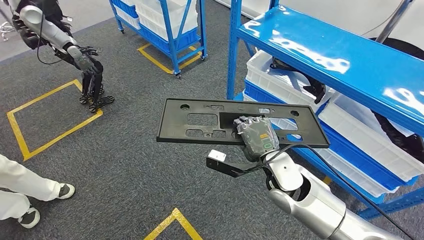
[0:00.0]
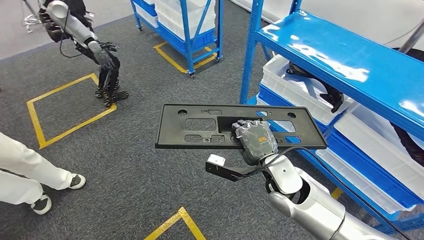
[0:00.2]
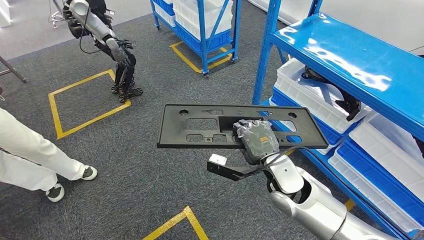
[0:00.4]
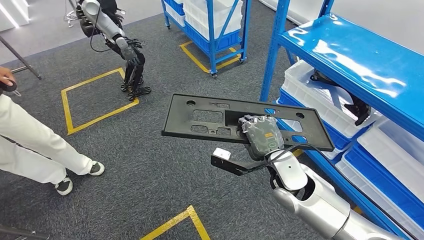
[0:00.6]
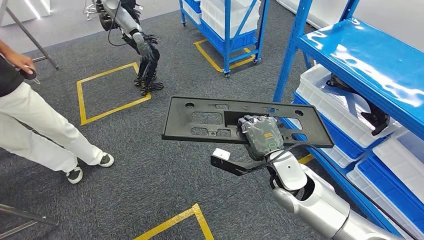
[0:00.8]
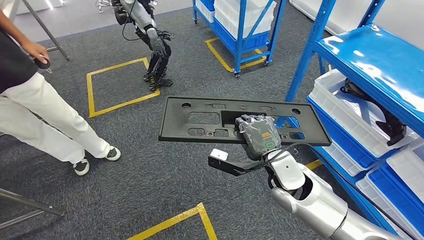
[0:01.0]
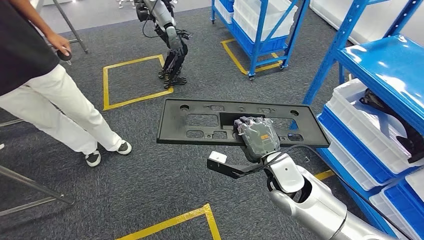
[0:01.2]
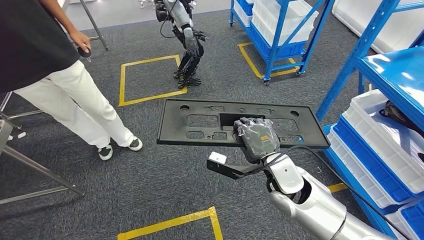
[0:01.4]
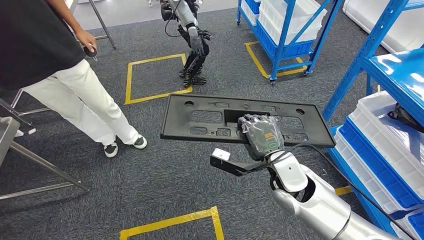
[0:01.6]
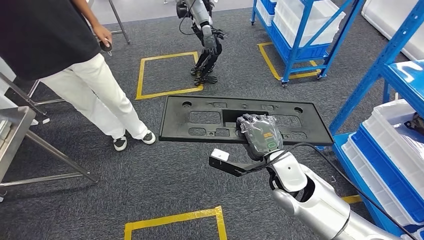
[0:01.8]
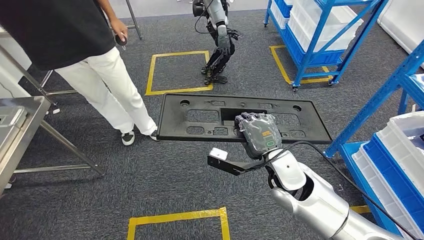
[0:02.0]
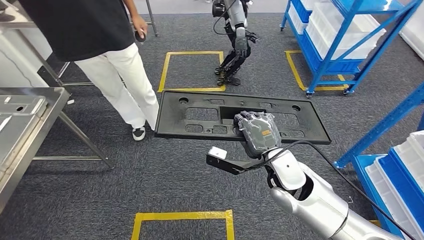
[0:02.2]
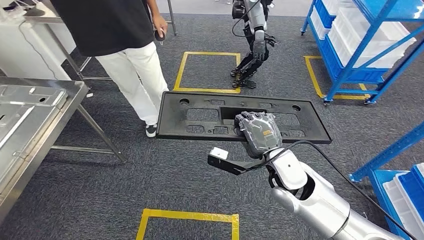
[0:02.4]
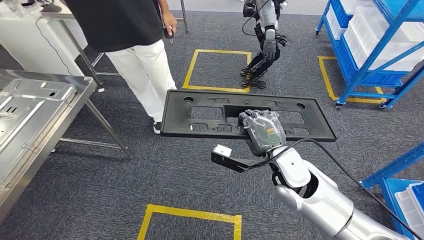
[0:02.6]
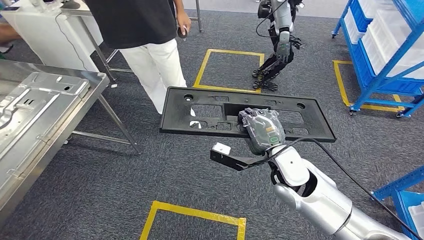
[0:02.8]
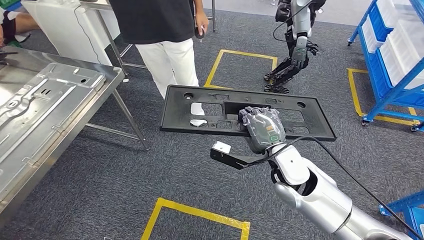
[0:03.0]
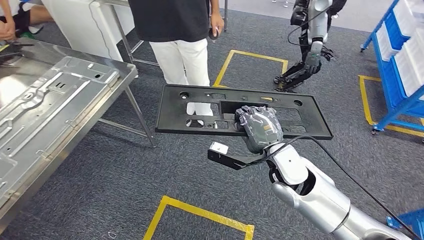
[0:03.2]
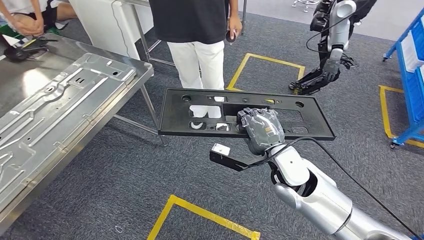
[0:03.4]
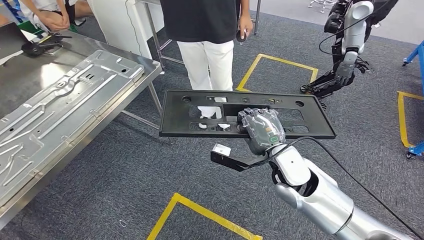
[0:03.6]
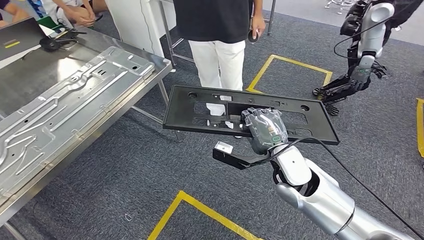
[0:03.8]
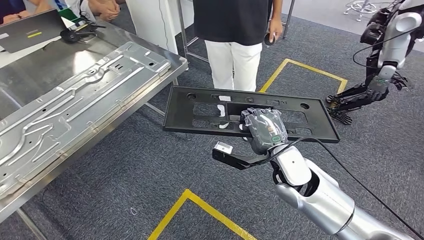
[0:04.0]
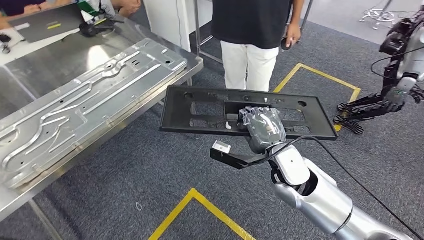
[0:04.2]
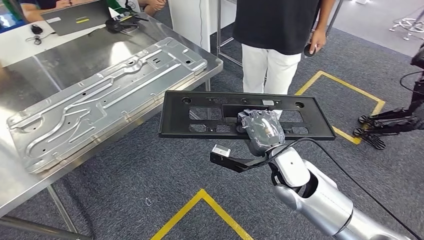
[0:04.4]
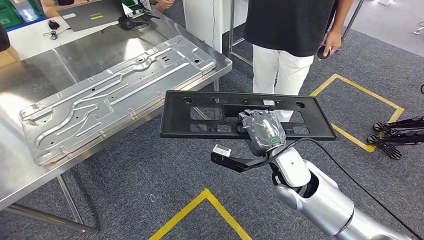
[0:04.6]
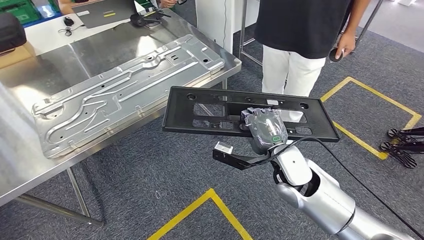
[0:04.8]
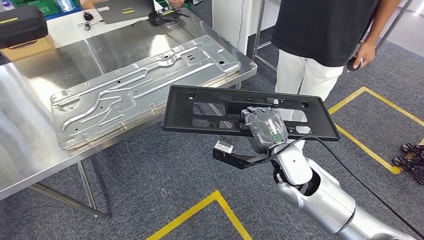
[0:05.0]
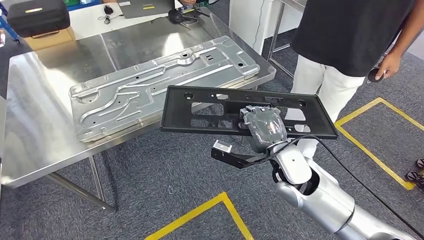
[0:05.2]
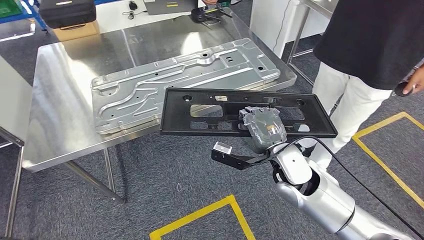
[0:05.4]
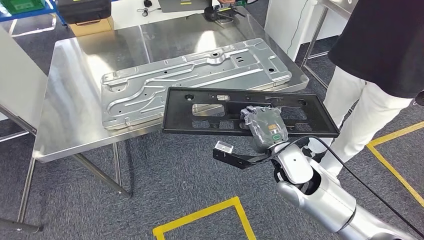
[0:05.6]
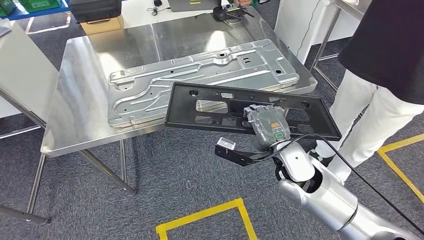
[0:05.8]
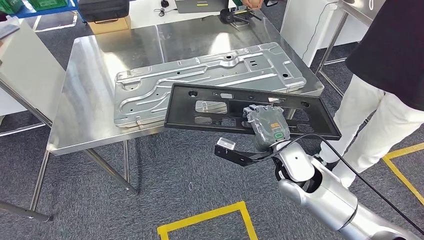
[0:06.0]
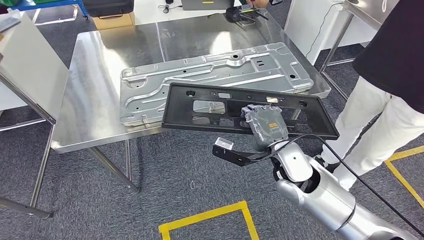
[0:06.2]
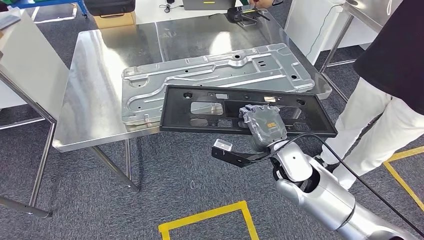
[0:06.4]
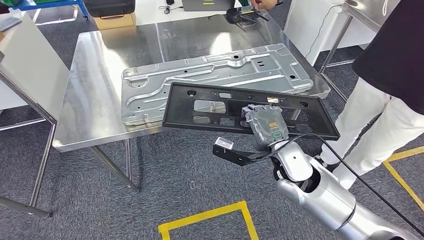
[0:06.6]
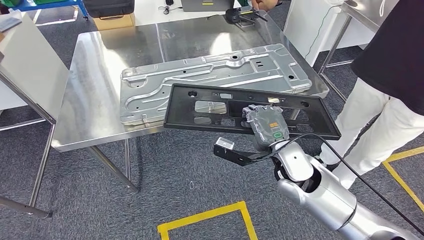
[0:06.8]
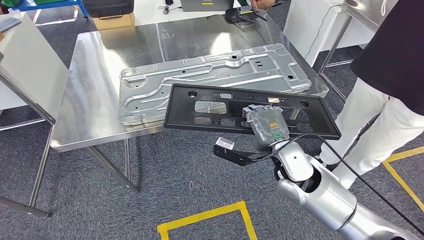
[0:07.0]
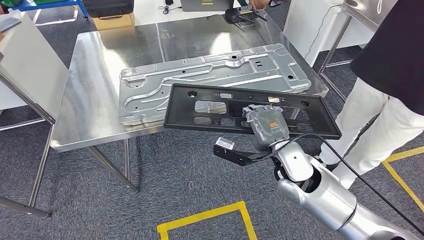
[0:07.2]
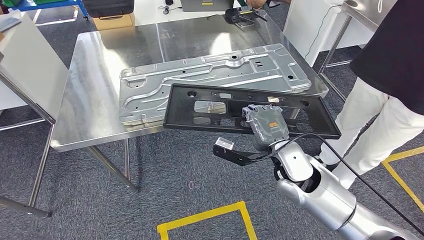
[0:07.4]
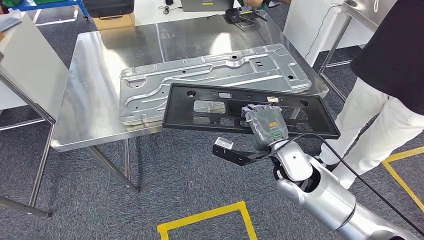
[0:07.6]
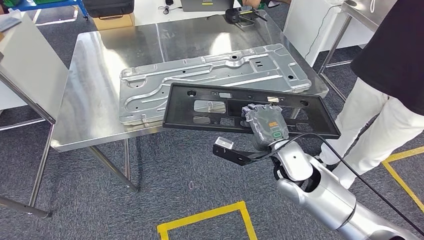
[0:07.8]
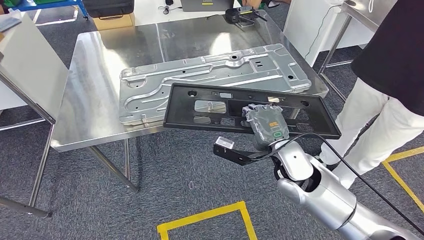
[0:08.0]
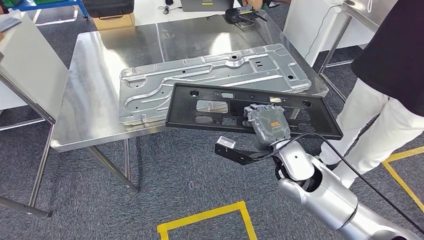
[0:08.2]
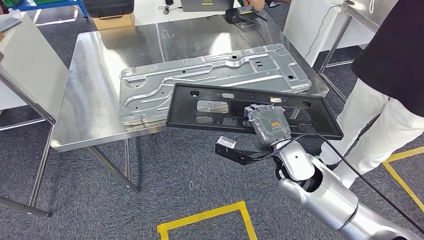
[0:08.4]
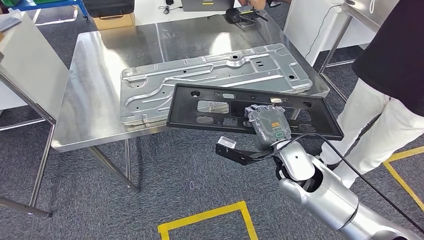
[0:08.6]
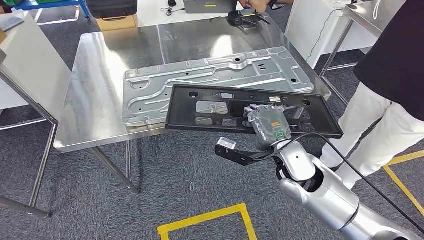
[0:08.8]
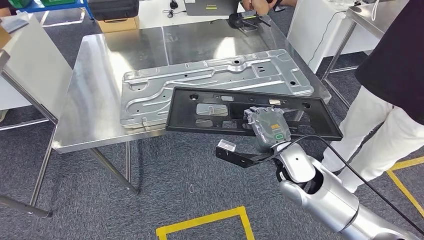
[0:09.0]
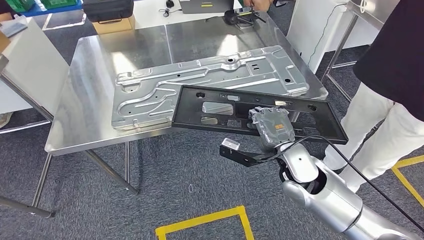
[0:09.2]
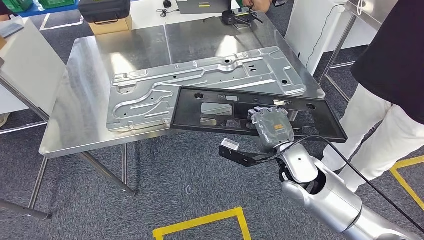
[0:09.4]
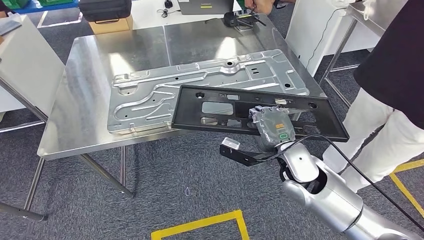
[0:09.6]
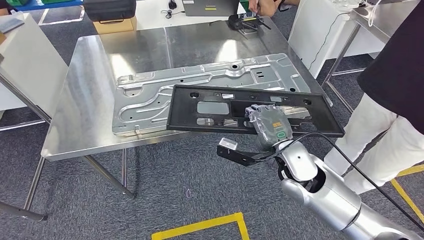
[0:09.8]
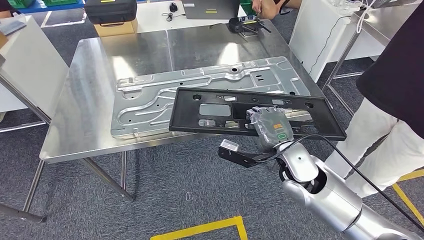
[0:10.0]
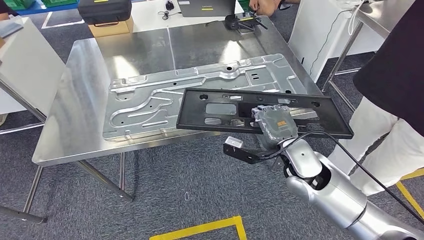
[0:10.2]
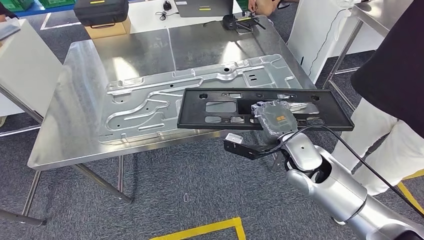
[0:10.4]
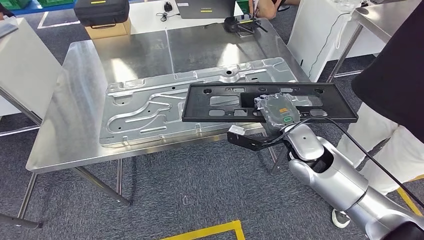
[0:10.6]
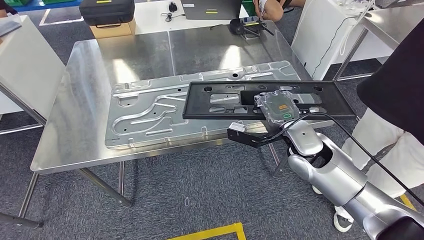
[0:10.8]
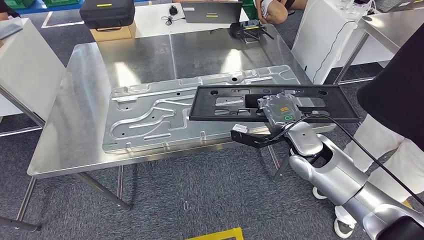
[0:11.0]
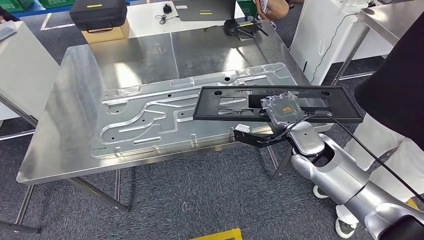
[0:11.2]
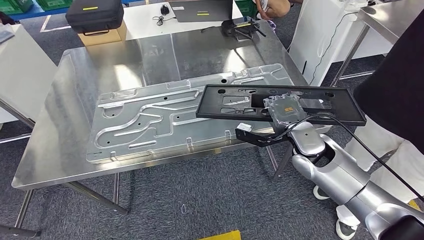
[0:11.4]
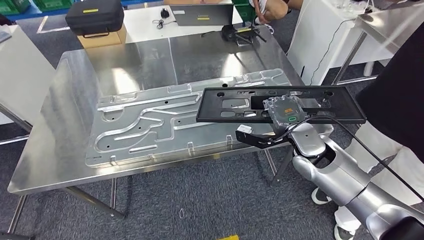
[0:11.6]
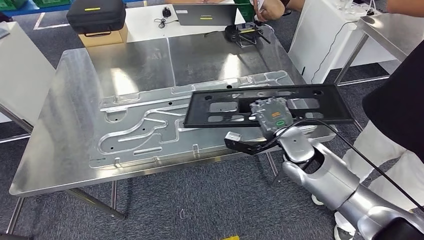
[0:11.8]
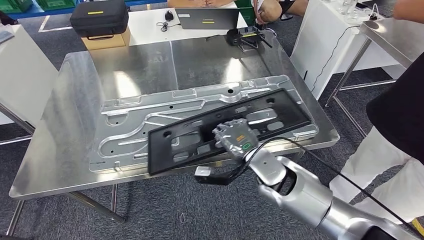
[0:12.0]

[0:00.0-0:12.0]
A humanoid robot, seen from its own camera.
Step, 0:00.0 to 0:05.4: Move the large material to the workbench.
0:06.0 to 0:07.6: Neither hand changes place.

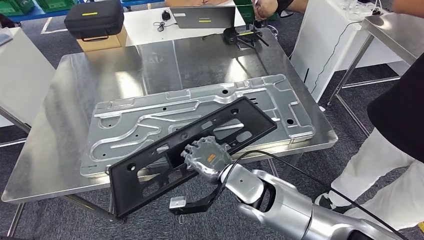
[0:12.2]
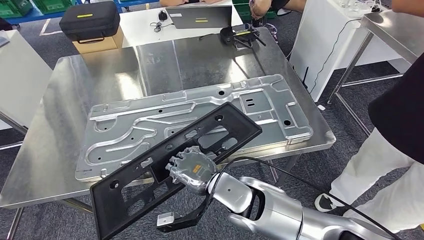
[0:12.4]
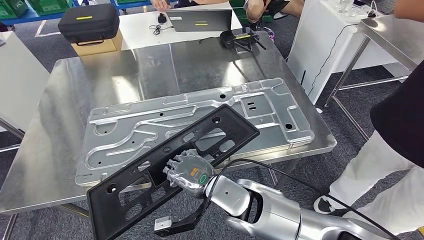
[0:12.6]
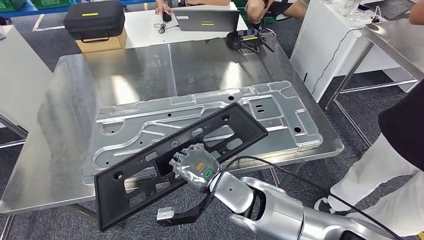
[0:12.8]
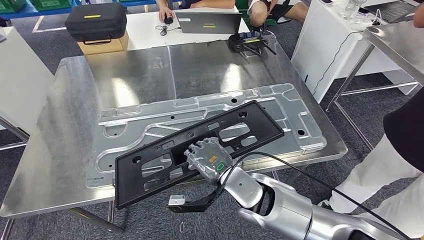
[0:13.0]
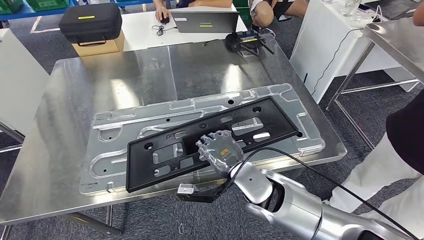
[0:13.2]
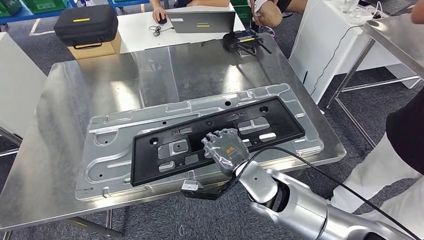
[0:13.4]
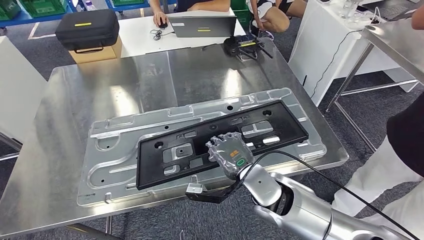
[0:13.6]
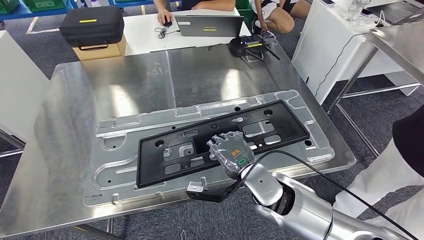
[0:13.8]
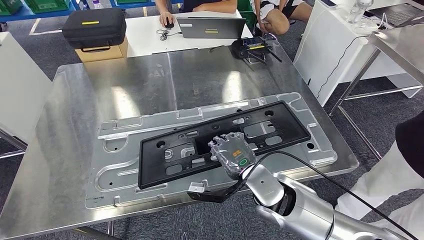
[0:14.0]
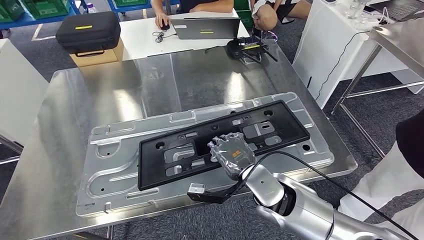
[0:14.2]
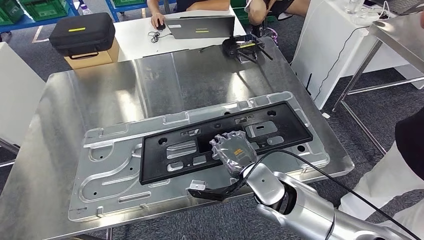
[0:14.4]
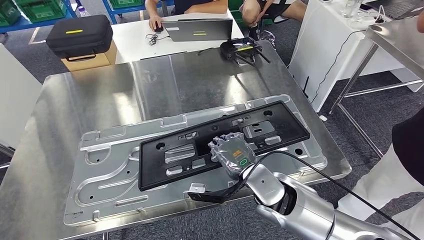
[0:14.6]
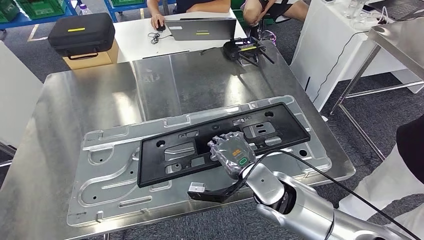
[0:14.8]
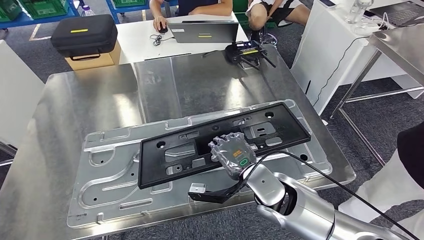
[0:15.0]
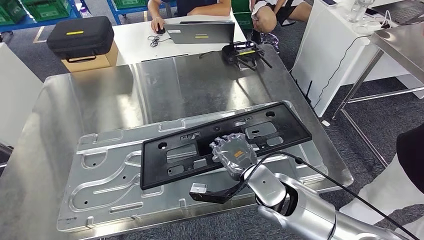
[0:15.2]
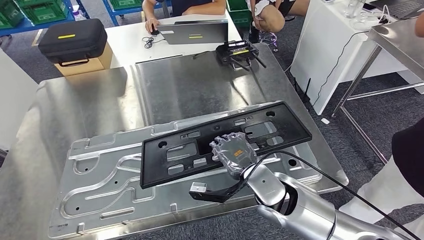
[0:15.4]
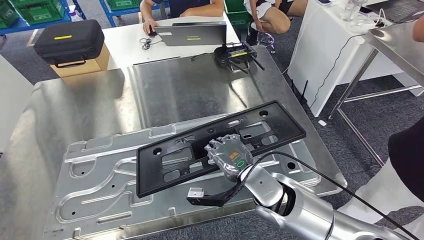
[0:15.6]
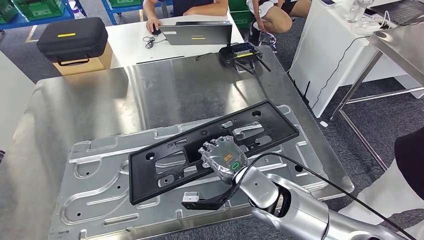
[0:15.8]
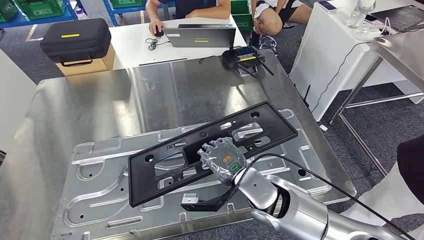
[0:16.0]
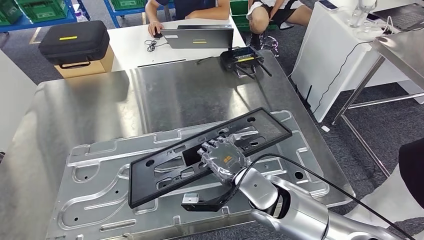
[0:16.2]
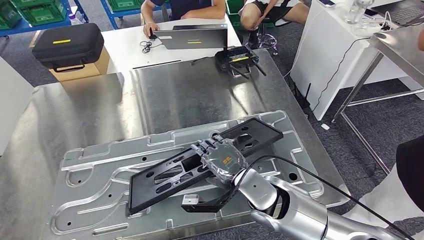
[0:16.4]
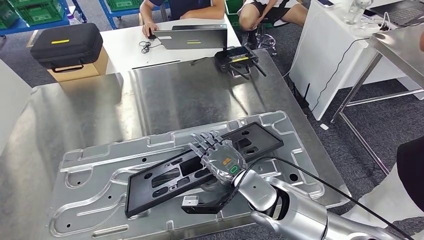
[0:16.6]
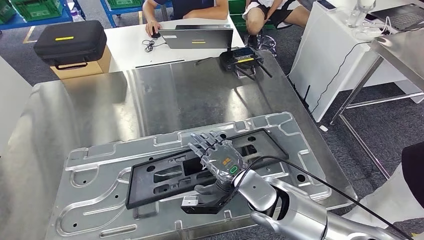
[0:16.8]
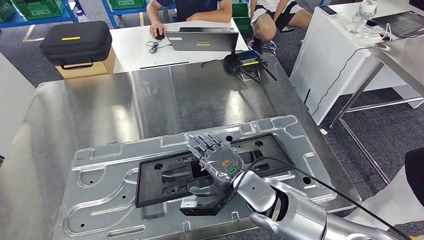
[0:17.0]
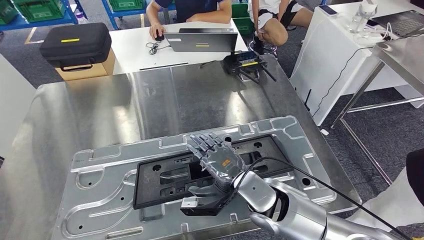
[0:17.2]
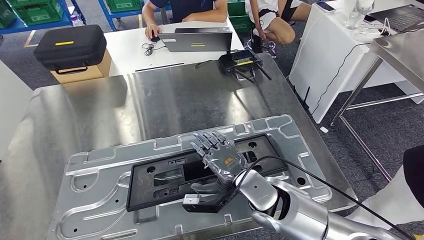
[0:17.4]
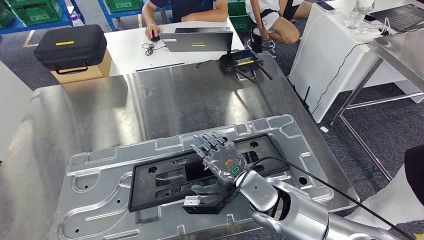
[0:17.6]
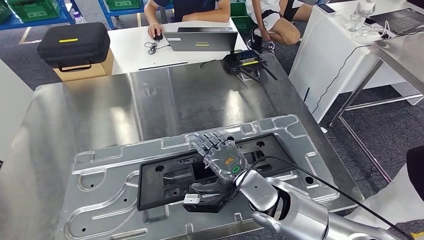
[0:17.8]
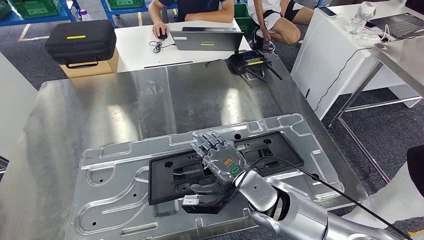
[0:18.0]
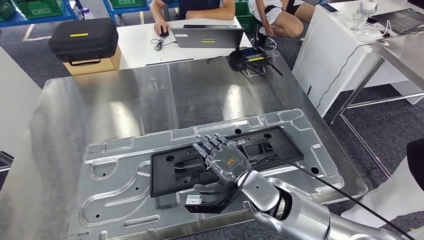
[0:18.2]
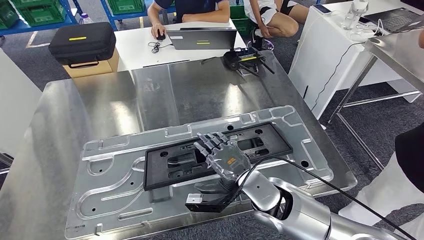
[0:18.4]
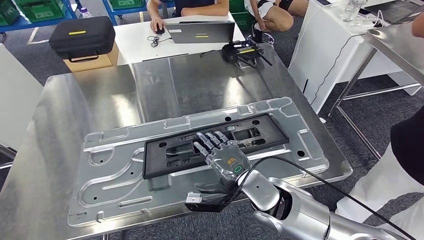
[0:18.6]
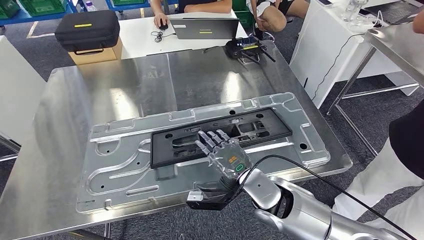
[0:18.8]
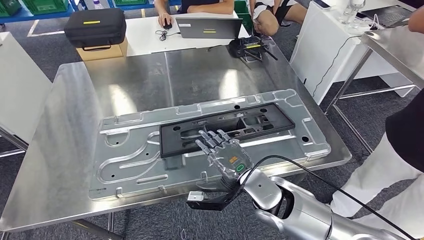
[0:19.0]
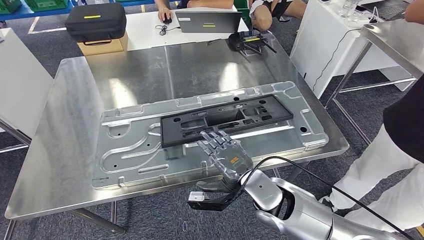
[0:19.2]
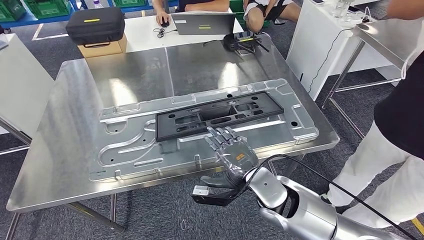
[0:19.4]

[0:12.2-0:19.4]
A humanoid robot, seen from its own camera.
Step, 0:12.2 to 0:18.0: Insert the large material into the corresponding slot on the workbench.
